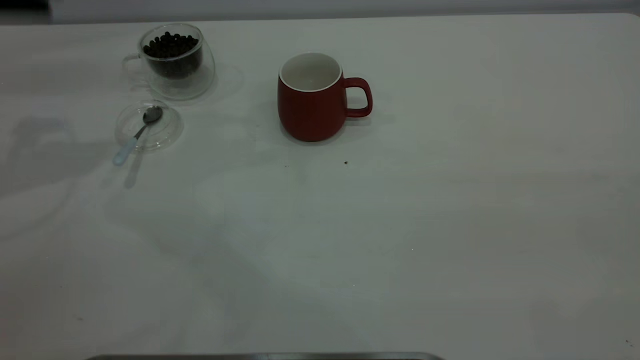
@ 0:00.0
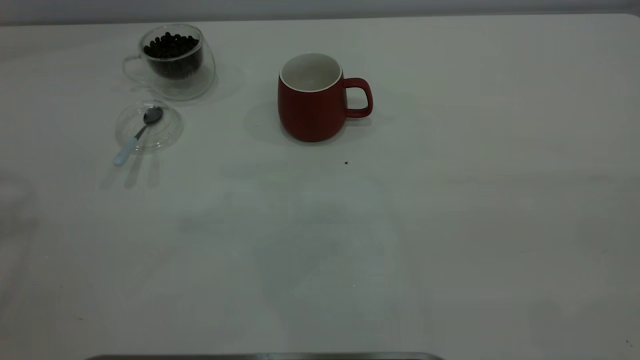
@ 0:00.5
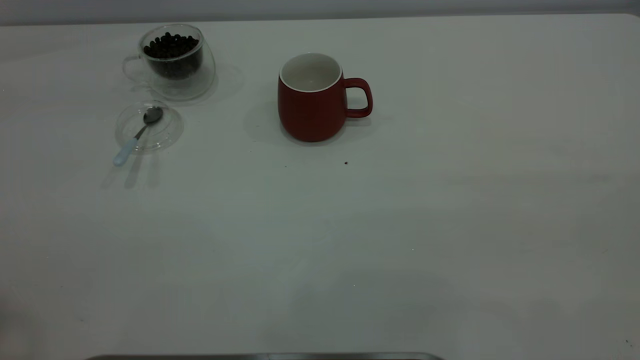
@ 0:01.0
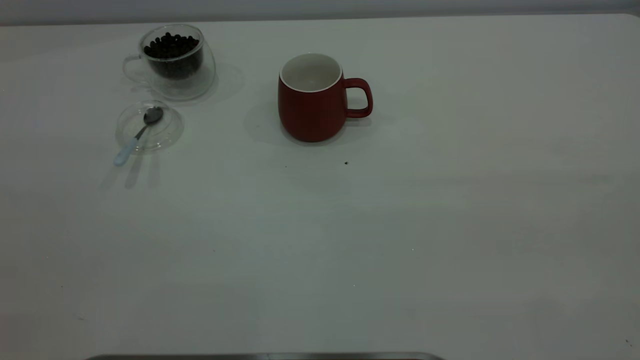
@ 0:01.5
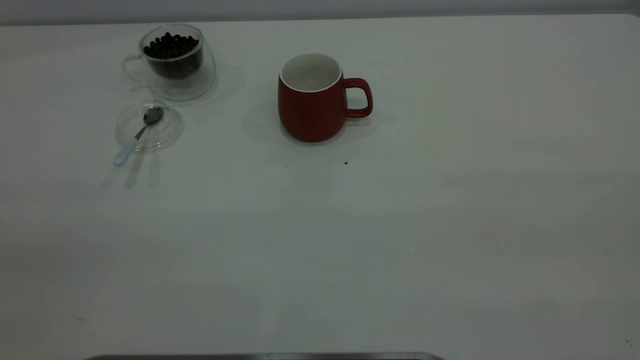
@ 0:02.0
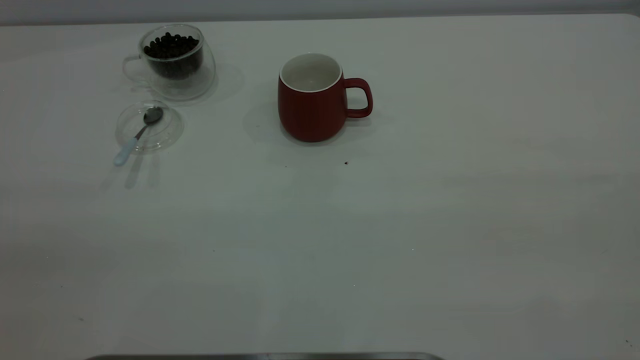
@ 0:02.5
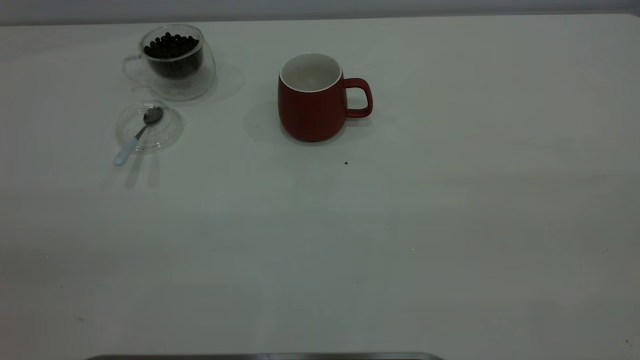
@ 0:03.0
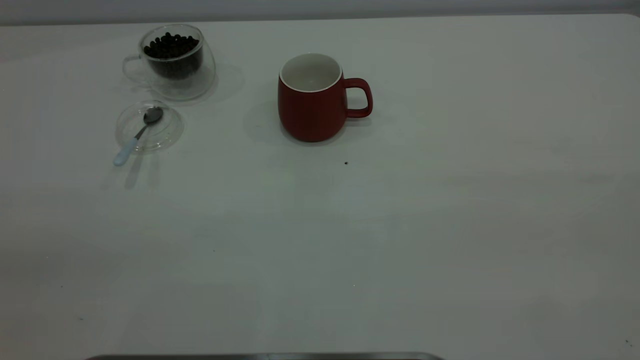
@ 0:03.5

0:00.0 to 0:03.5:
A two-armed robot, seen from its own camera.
Task of the whole recording: the right gripper place the red cup in the center of the table, the left gripper take the blue spoon from the cup lid and scoop out the coffee beans from the coffee cup and put them into the red cup, the left gripper put the spoon back into the cup lid.
0:02.0 to 0:03.5: Both grippers stay about where they are.

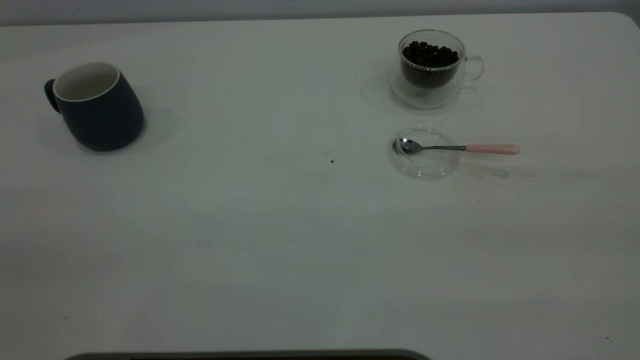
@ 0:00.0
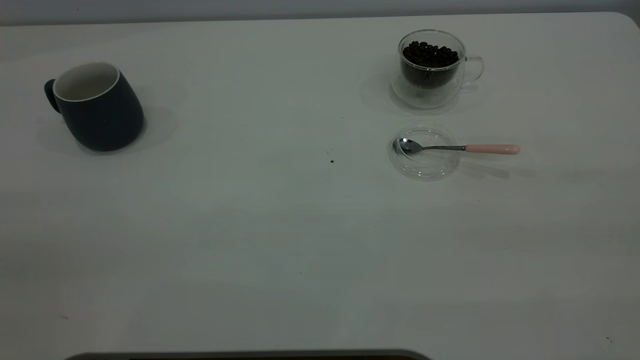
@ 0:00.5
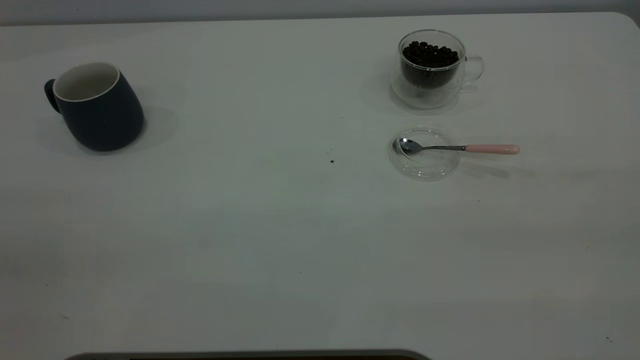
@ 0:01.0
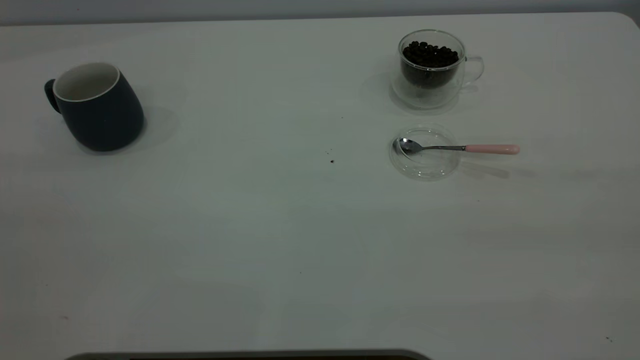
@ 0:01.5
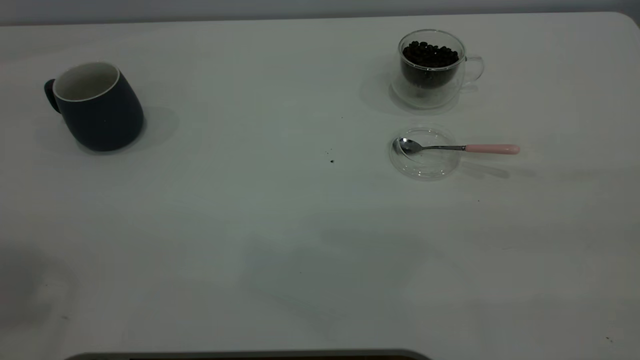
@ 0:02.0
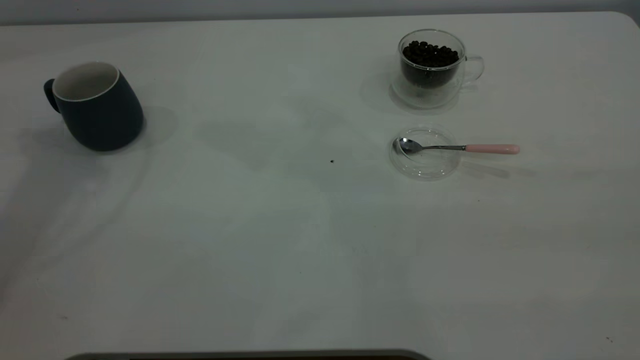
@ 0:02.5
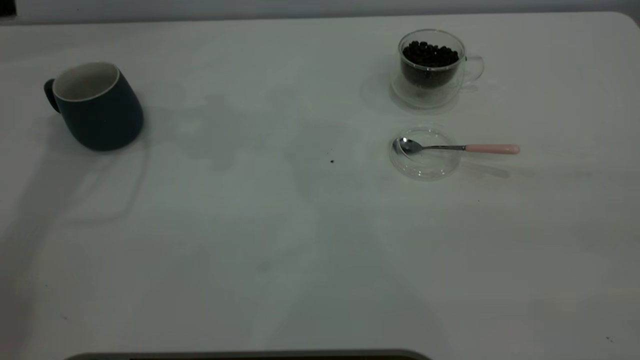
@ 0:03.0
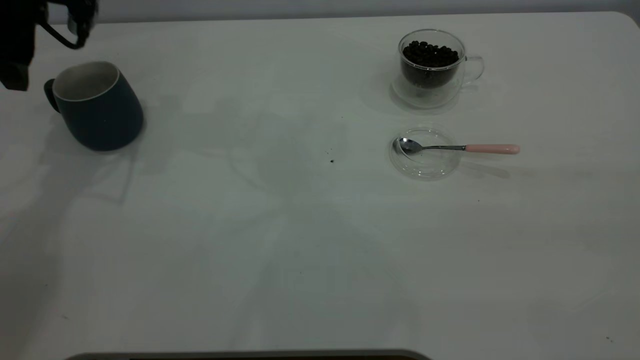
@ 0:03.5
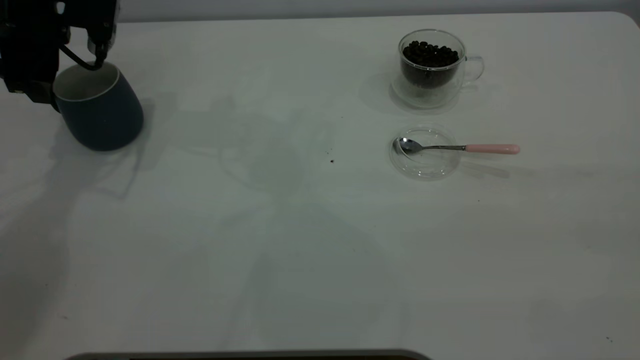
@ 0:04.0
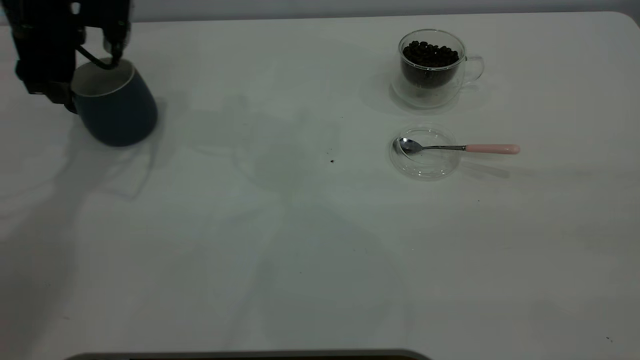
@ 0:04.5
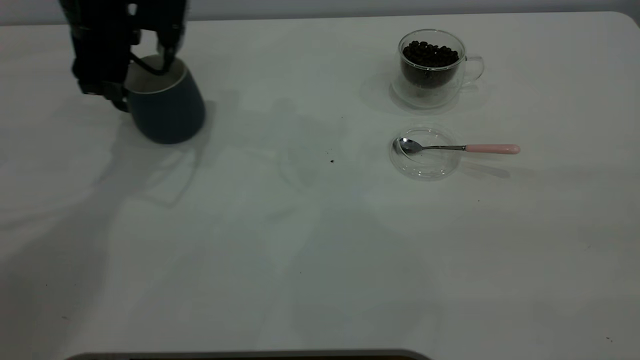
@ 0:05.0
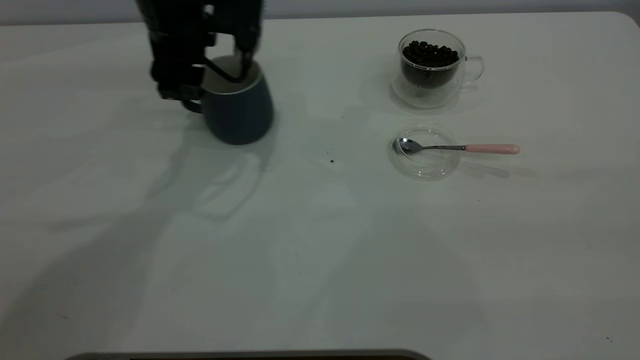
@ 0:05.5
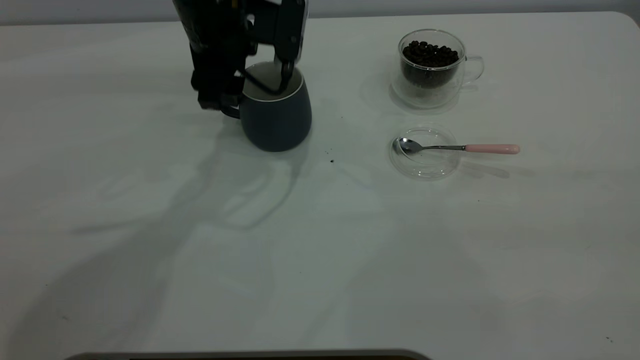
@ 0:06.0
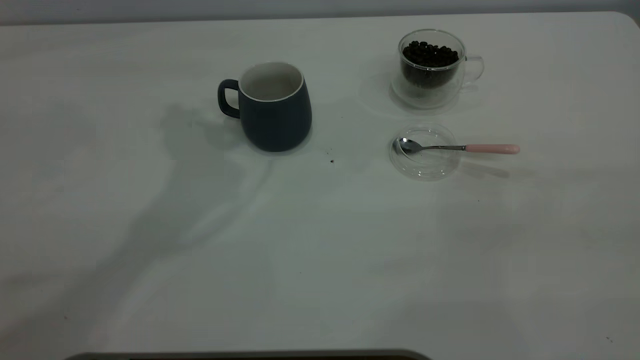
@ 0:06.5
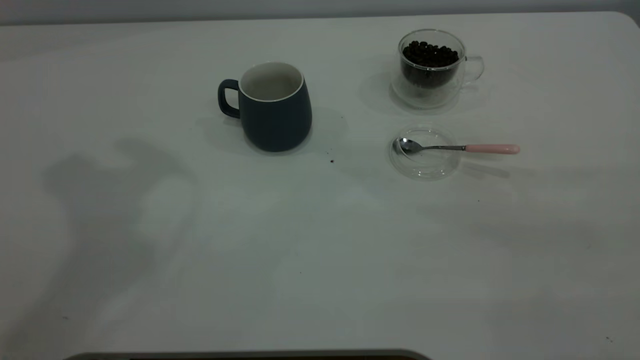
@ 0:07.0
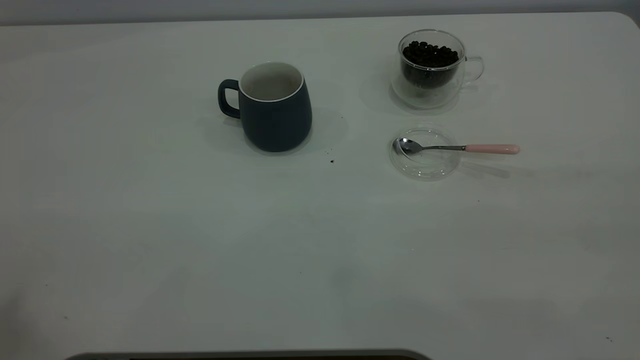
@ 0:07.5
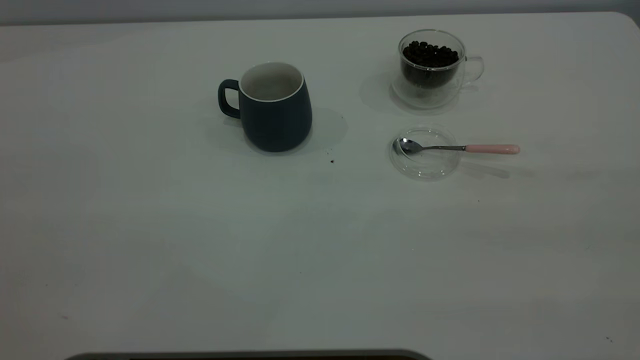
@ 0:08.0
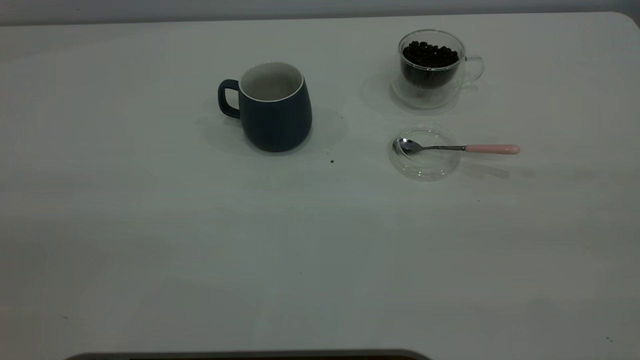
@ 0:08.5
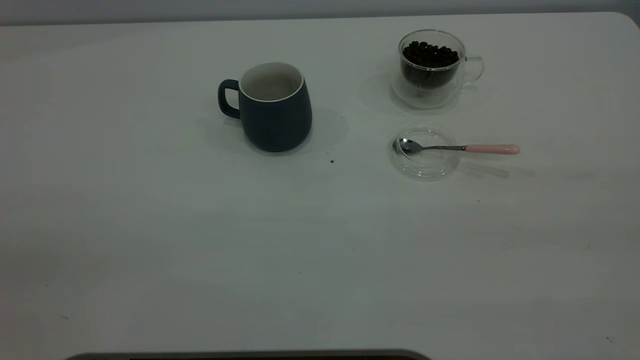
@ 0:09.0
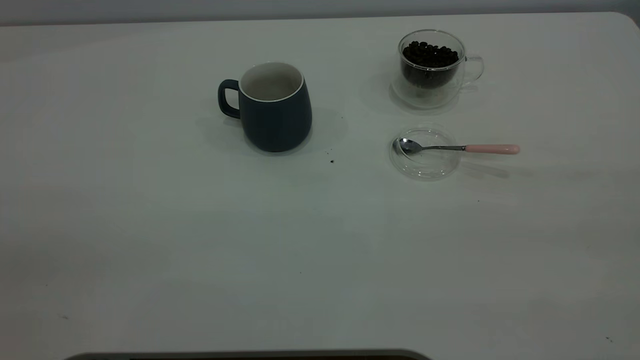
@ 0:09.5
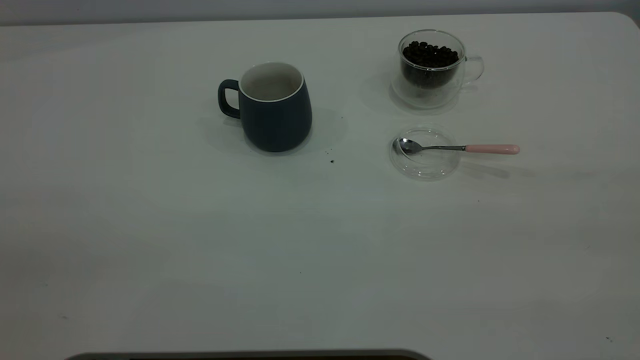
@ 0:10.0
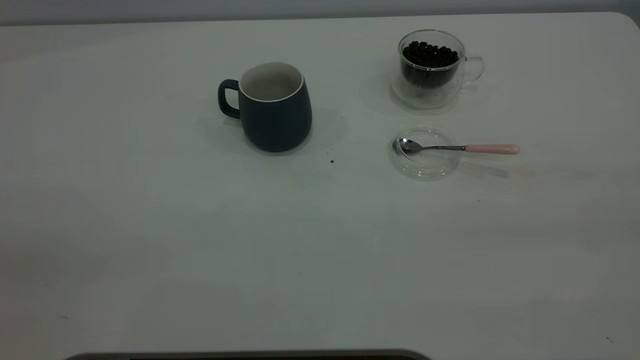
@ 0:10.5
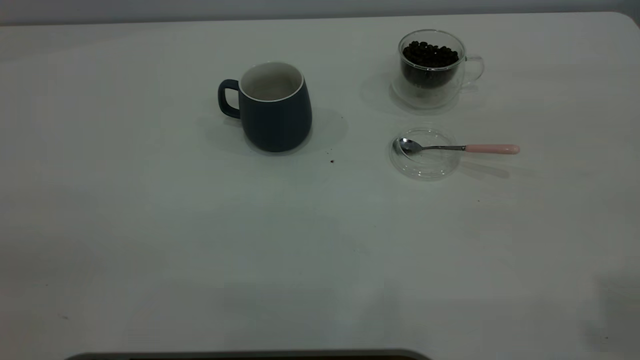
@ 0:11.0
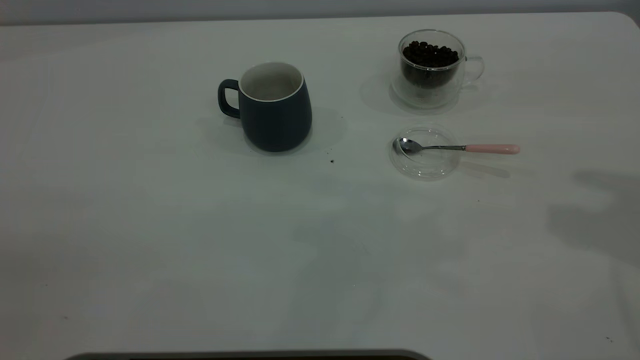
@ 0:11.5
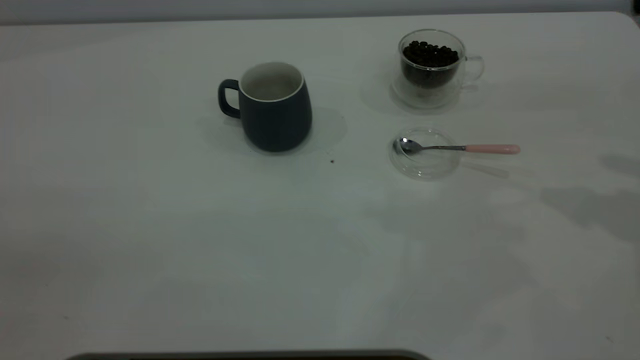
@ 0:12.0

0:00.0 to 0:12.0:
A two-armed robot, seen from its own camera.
Task of the whole recording: the left gripper place the grey cup in the center of the table, the right gripper take the pink spoon from the cup lid and scoop out the coffee beans from the coffee cup and put them into the grey cup, the right gripper put the spoon back into the cup lid.
Step, 0:00.0 to 0:06.0: Move the cup to the center of view.
0:02.0 to 0:04.0: The left gripper heads downward and forward, covering roughly 40 cm.
0:04.0 to 0:06.0: The left gripper is displaced to the right by approximately 20 cm.
0:06.0 to 0:08.0: The left gripper moves backward, upward and to the left, about 50 cm.

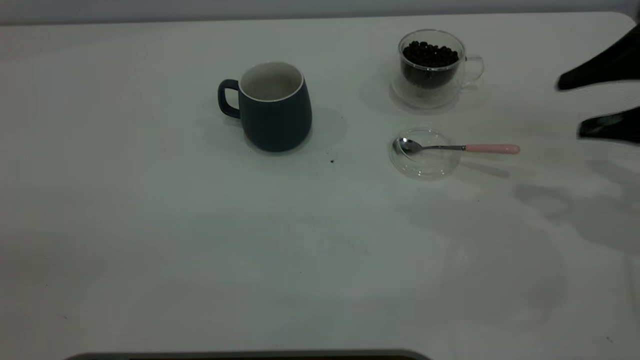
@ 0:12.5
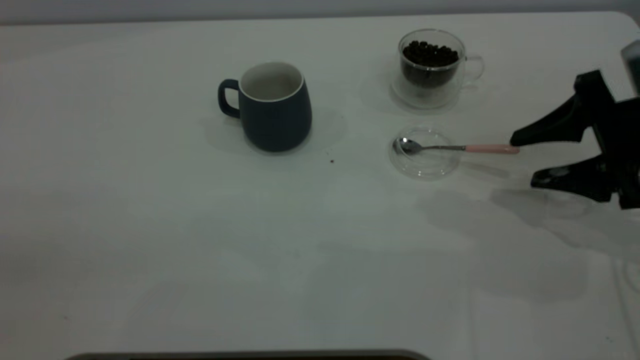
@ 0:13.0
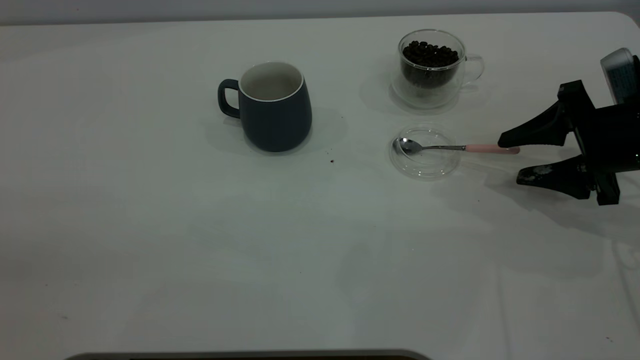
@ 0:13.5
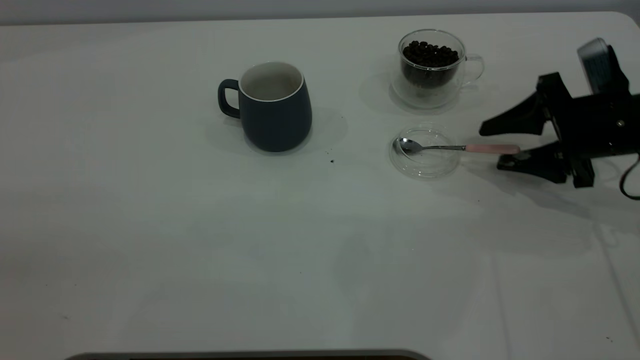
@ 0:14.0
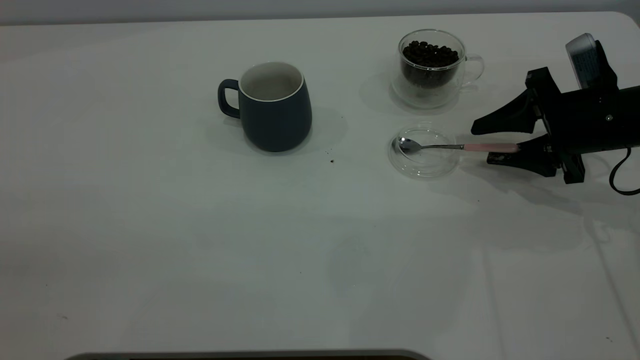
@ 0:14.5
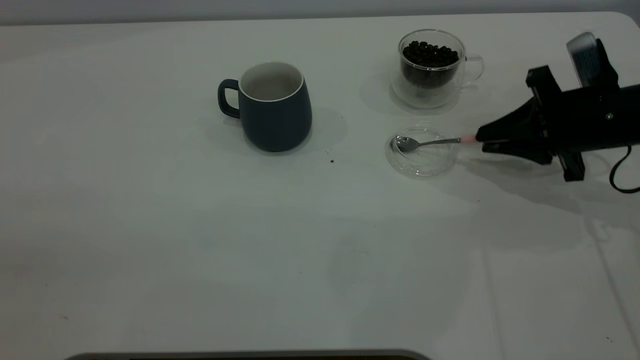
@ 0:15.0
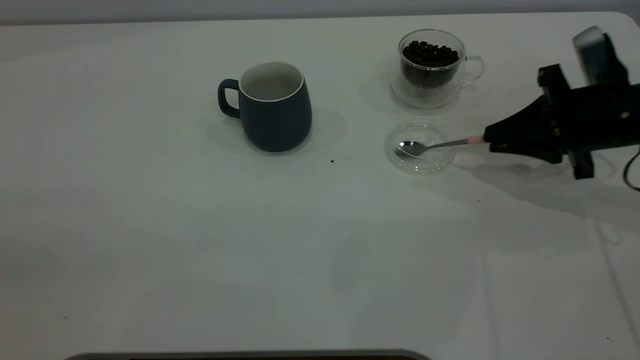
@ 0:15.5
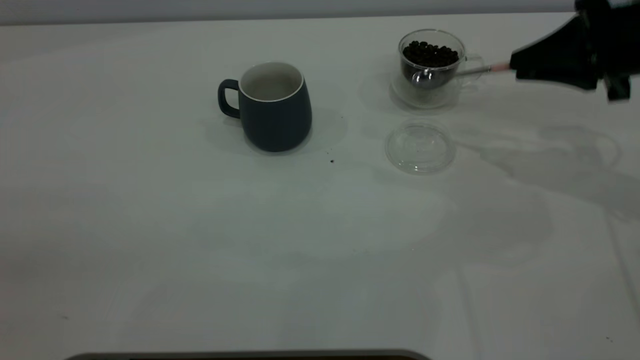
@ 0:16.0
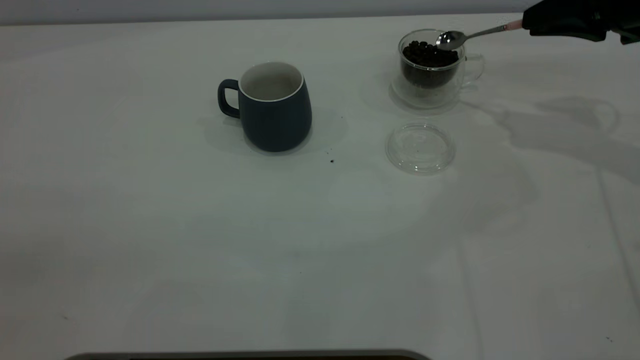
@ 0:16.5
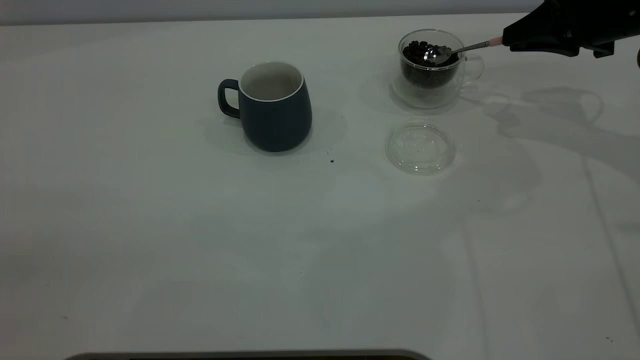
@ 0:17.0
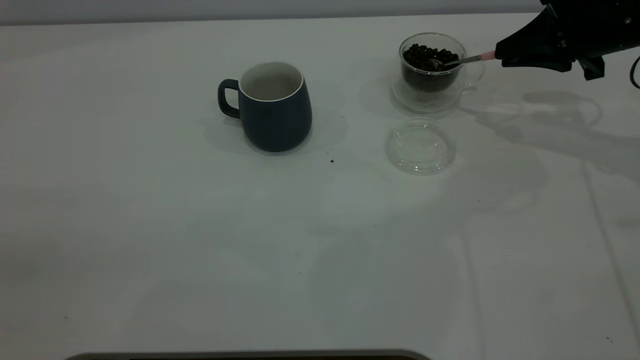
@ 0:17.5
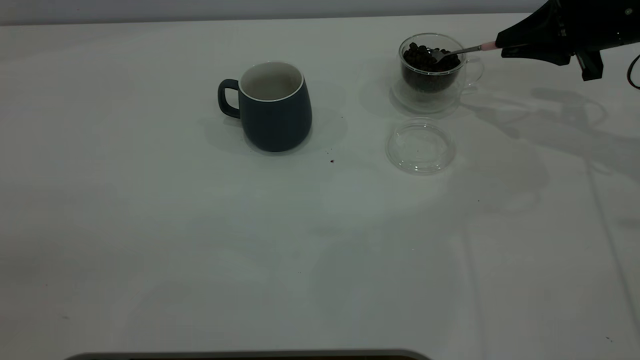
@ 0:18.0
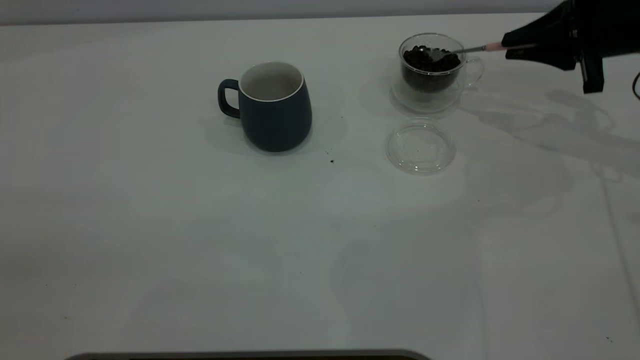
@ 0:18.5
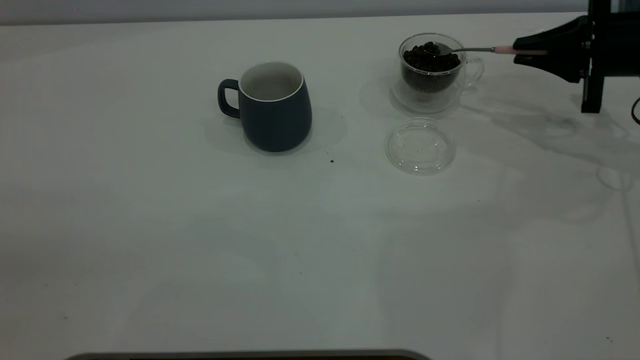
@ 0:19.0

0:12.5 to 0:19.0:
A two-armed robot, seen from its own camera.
Task of the whole recording: the left gripper place the grey cup in the center of the table, the right gripper take the pink spoon from the cup lid and scoop out the coffee beans from the coffee cup and put them into the grey cup, the right gripper put the spoon back into the cup lid.
Step, 0:12.5 to 0:15.5: Pick up the spoon.
0:12.5 to 0:14.5: The right gripper travels downward and forward by some 10 cm.
0:14.5 to 0:17.0: The right gripper goes approximately 10 cm forward and upward, and closes up.
0:17.0 to 0:19.0: The right gripper ends up roughly 5 cm from where it was.
